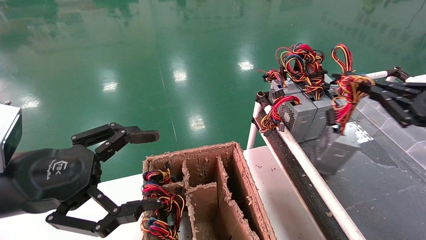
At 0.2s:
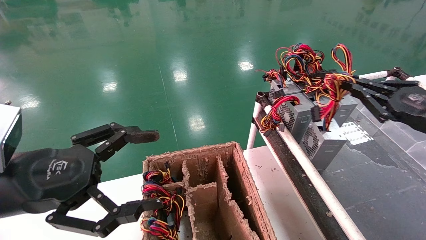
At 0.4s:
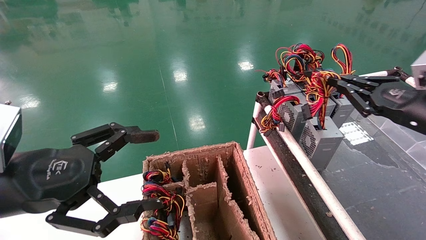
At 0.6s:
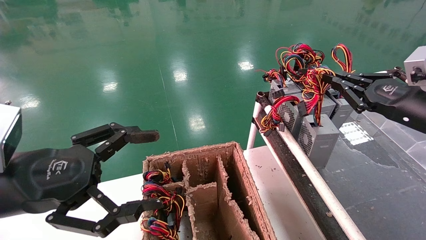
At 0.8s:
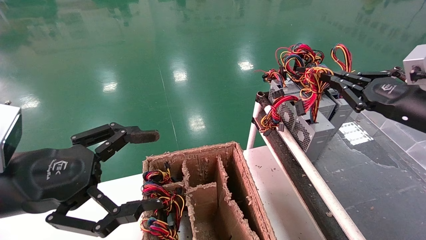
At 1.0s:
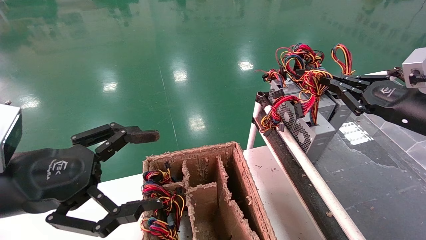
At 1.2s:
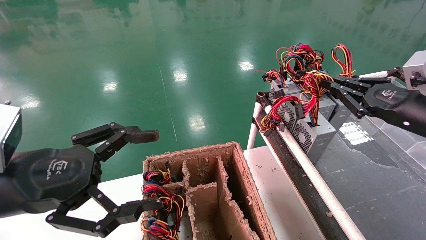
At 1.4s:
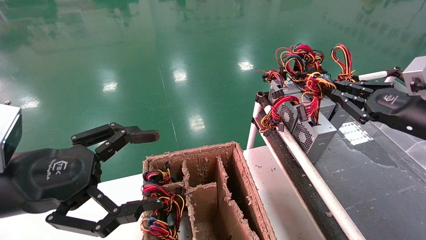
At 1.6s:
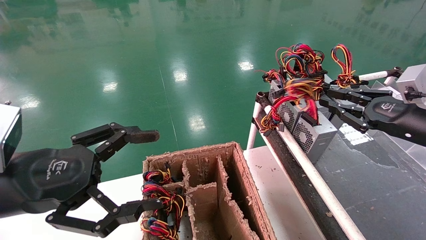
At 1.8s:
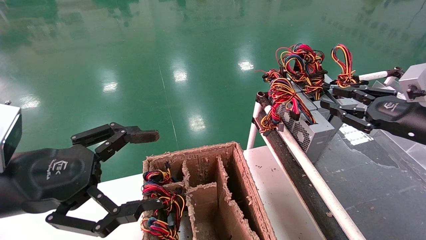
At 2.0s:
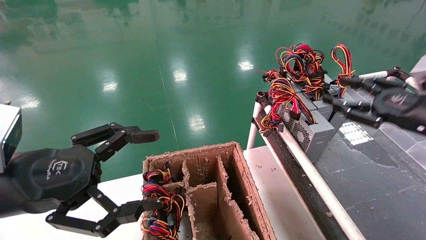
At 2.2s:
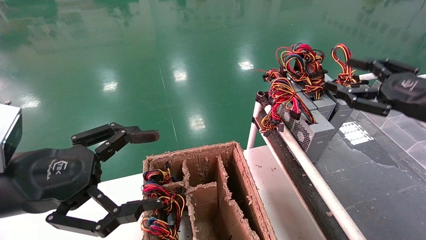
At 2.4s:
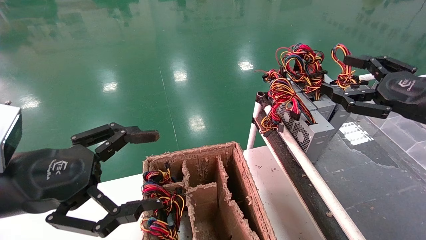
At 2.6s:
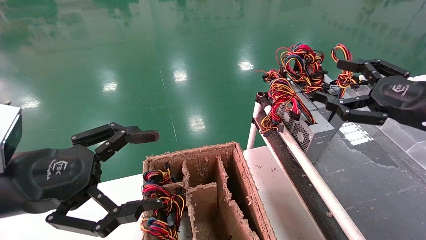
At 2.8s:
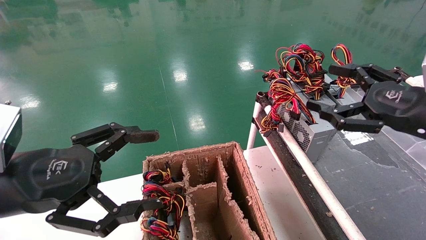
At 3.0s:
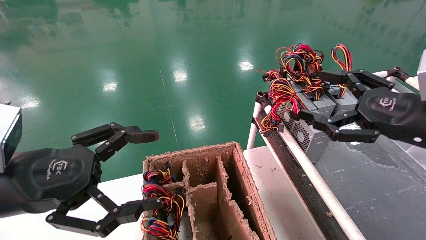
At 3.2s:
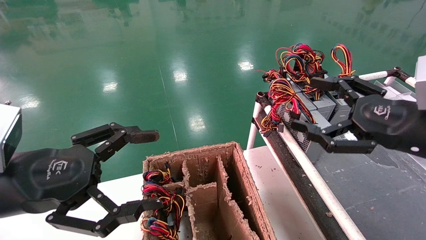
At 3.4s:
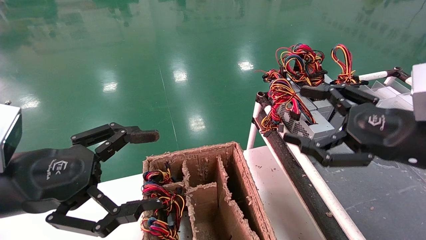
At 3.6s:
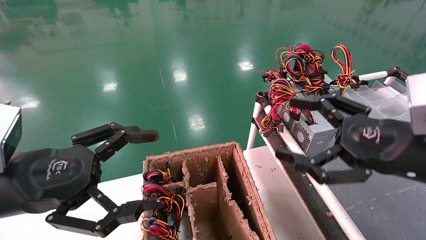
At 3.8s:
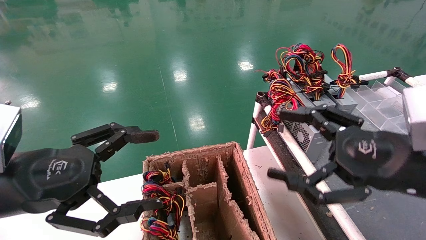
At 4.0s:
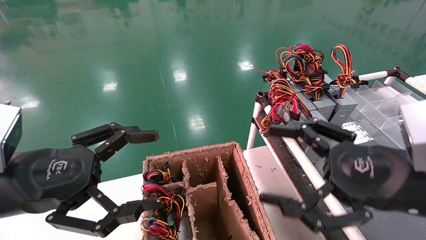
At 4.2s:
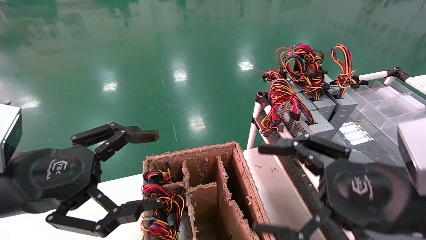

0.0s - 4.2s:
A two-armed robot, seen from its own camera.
0.0s - 1.4s: The right gripper shifts by roughly 5 cm.
1.4s - 2.8s: The right gripper is displaced backward by approximately 5 cm, and opens.
2.8s - 4.2s: The right gripper travels to the left and backward by some 10 cm.

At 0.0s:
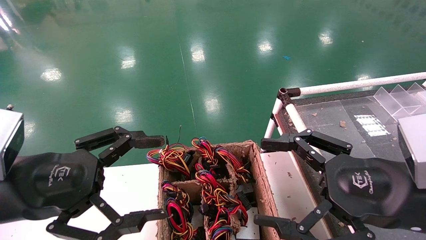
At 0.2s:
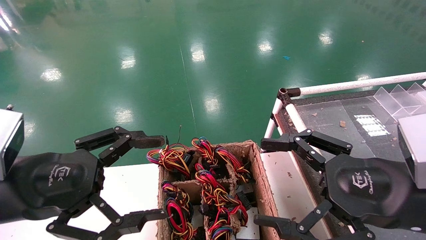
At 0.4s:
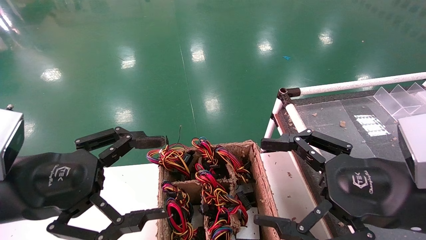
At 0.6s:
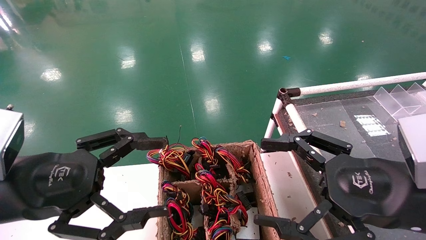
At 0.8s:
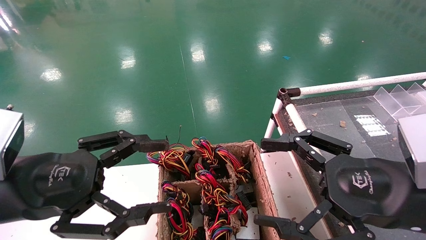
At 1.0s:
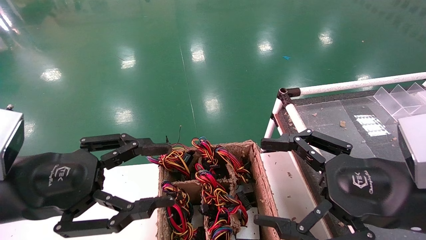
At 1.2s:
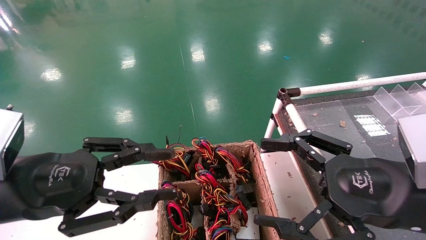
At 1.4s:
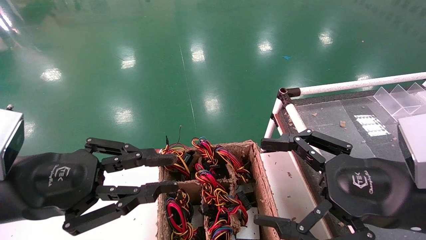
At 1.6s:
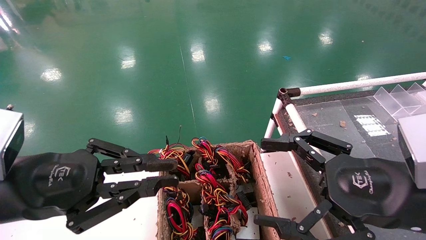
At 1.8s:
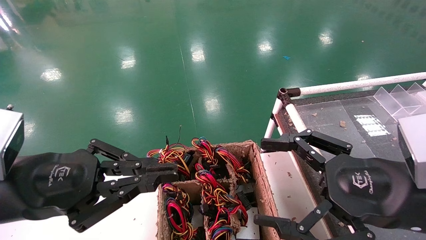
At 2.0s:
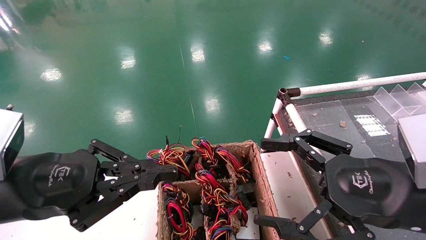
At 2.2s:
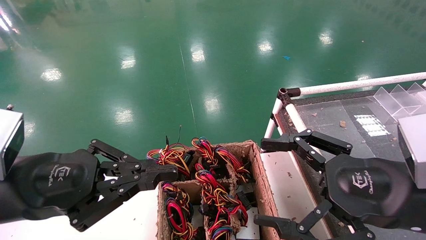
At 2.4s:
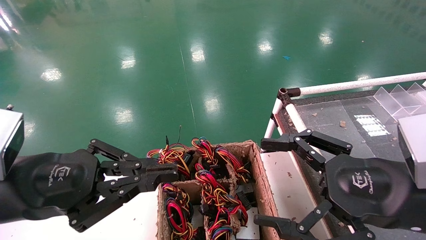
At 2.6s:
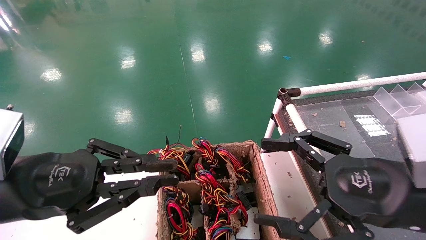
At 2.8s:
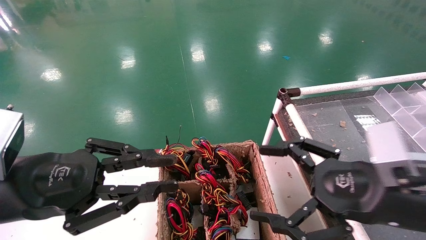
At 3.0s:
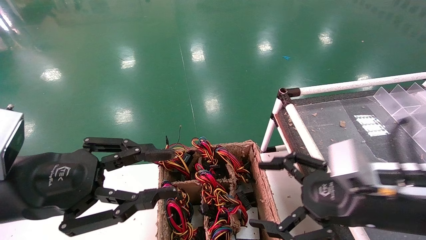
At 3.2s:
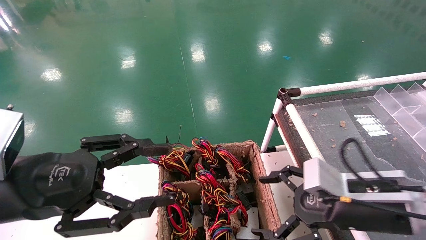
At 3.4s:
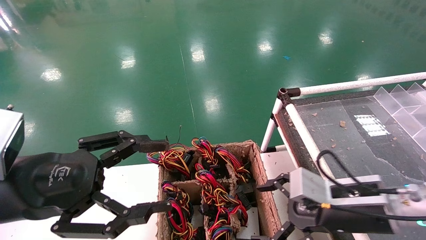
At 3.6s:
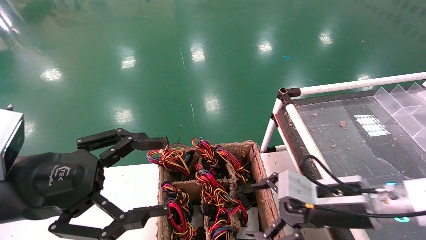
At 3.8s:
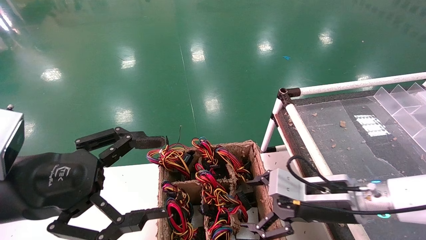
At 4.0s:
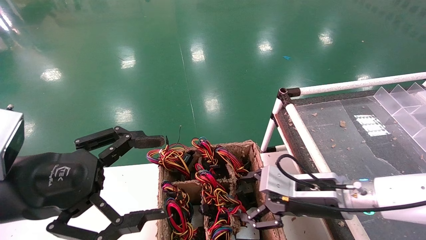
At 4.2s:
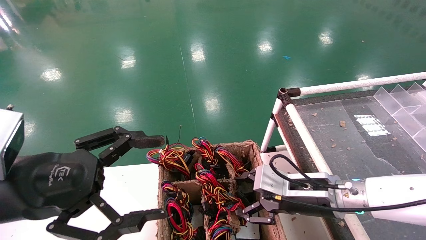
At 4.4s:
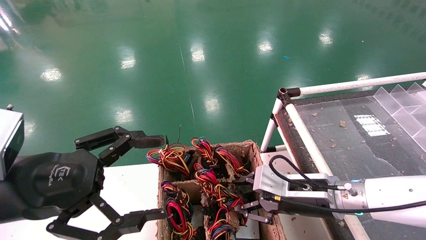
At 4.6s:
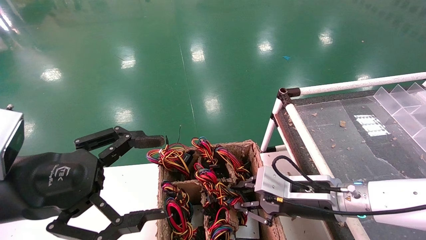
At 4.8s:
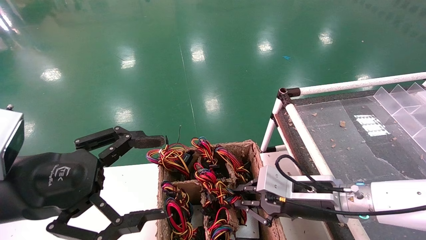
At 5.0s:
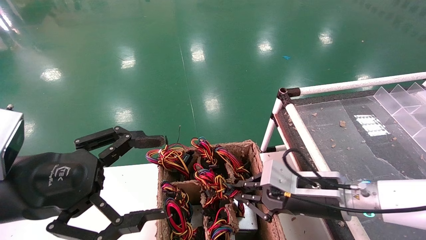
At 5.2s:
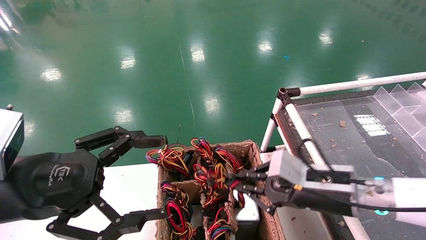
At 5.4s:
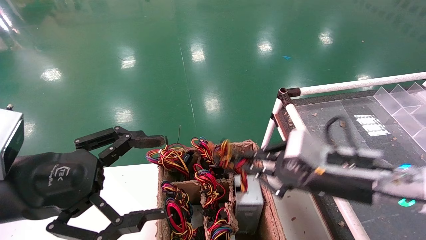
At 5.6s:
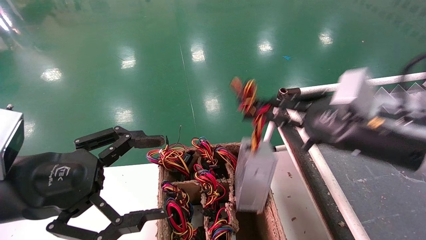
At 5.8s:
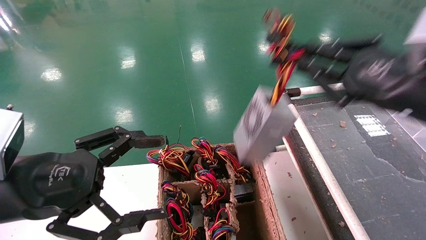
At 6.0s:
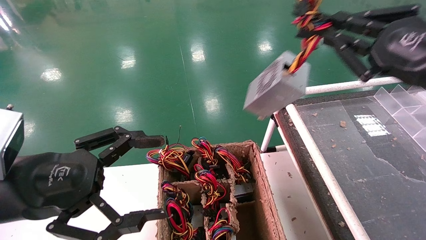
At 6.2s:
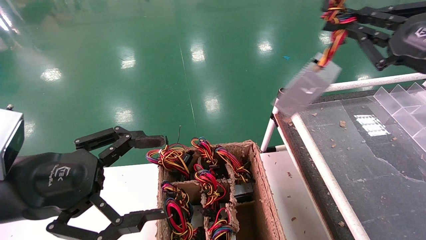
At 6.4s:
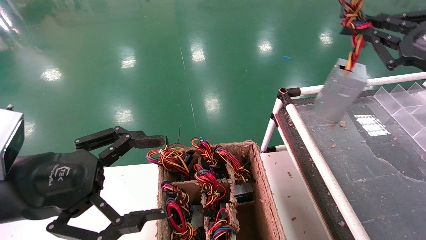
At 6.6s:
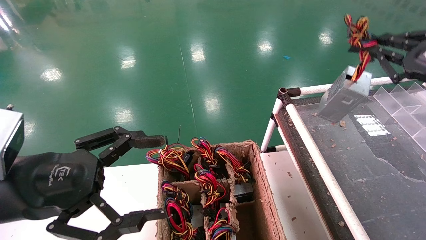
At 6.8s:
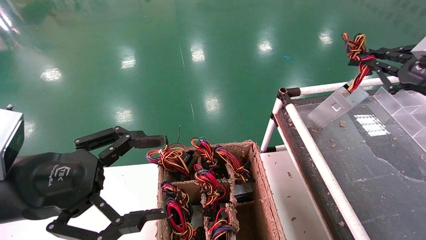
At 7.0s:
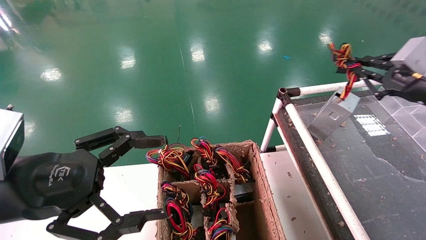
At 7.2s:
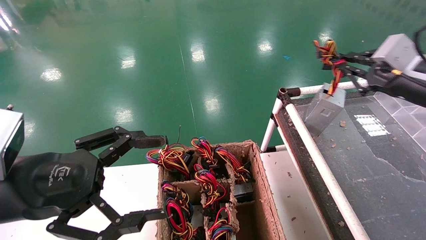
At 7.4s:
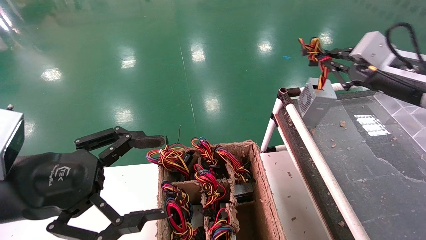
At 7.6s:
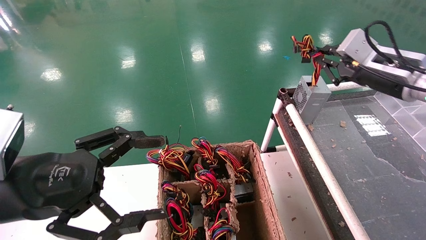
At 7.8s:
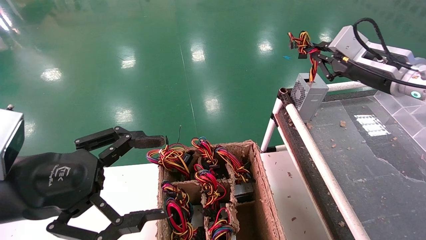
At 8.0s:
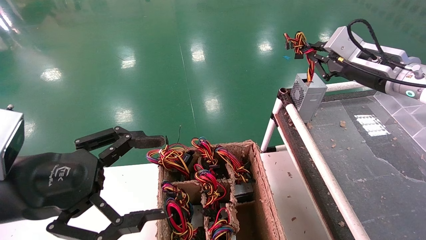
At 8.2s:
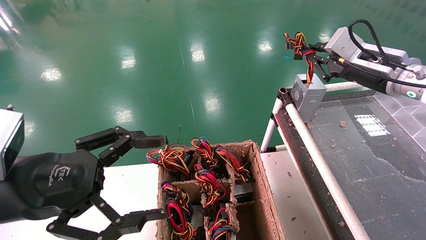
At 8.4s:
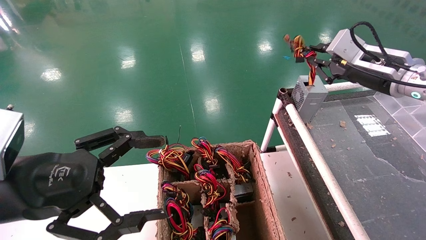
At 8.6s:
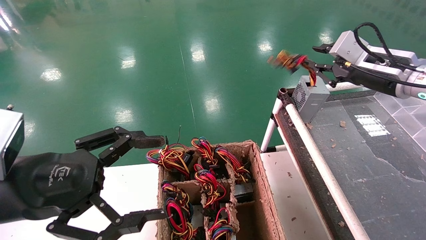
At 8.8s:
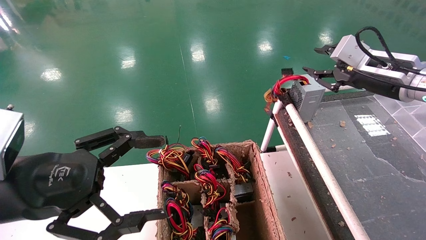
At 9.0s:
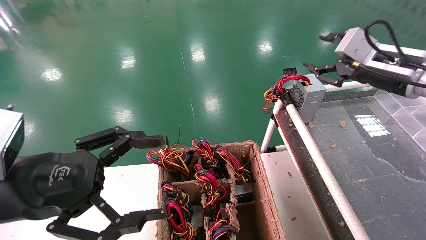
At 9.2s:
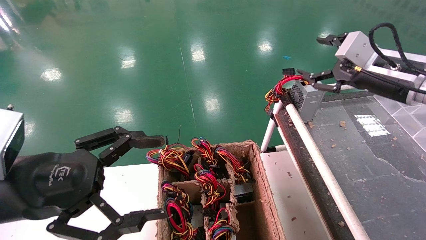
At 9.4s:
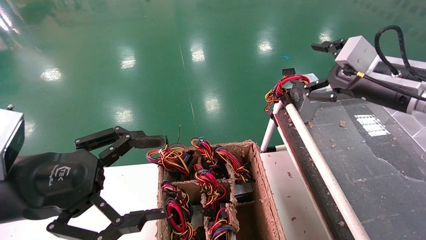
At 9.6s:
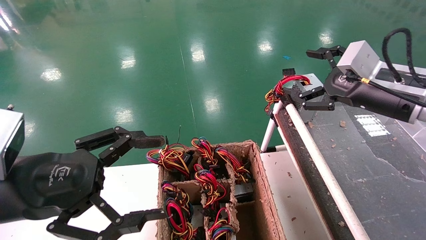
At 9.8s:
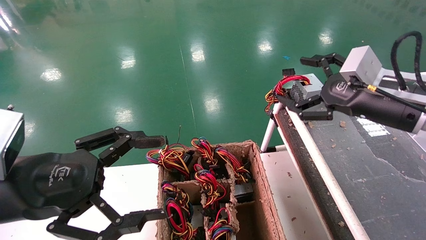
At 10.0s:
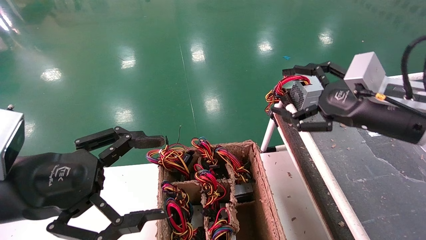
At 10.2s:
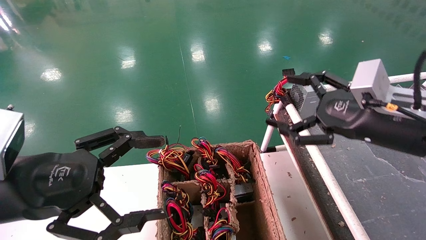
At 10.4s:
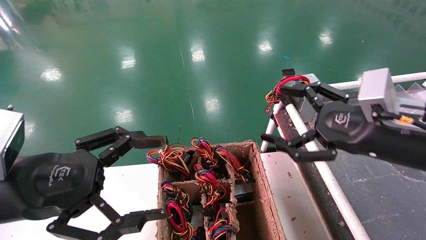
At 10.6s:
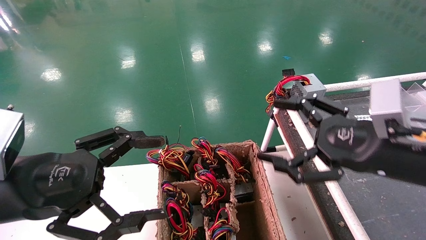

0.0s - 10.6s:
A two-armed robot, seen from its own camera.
Step, 3.0s - 5.0s: Grab and lift the power supply from the large box.
Step, 5.2s - 8.4s: Place the power supply on the operating table.
0.0s - 1.6s: The left gripper closes.
1.6s - 3.0s: The right gripper shifts by about 5 cm.
3.0s - 4.6s: The right gripper moves forward, downward and to the left, about 10 cm, and closes its fingers, while the left gripper opens up.
4.6s - 6.0s: The right gripper goes roughly 25 cm upward and to the right.
6.0s - 7.6s: The right gripper travels forward by roughly 15 cm.
7.6s - 9.0s: The right gripper opens.
9.0s - 10.6s: The right gripper heads backward, downward and to the left, covering roughly 15 cm, and opens.
